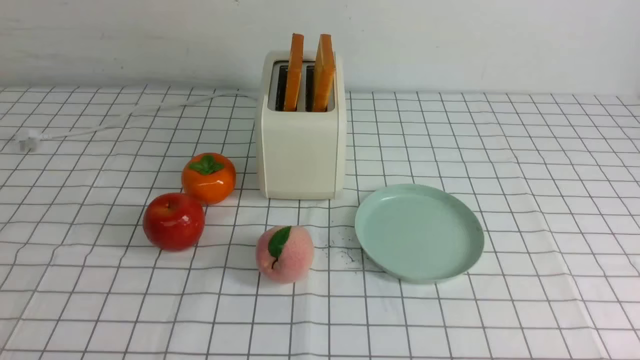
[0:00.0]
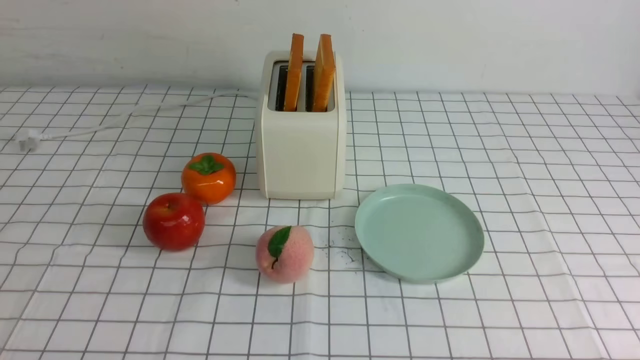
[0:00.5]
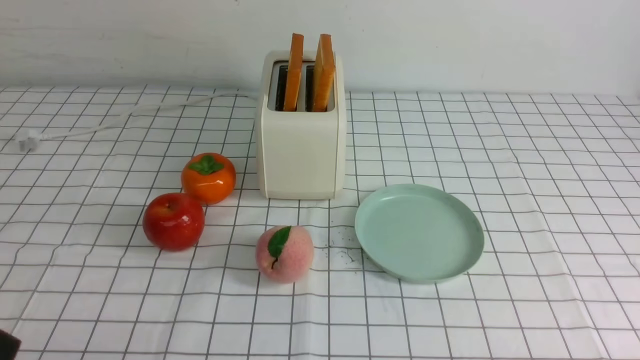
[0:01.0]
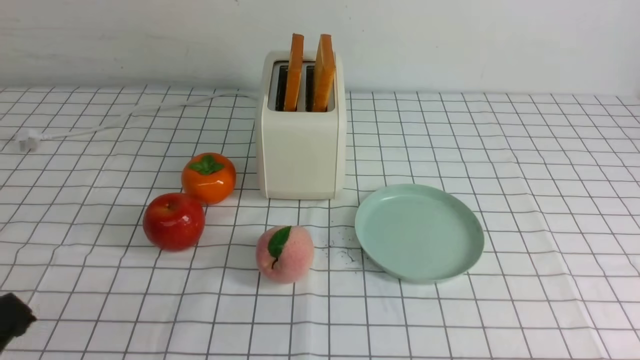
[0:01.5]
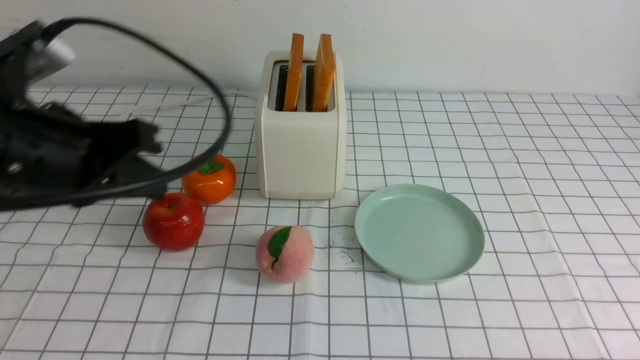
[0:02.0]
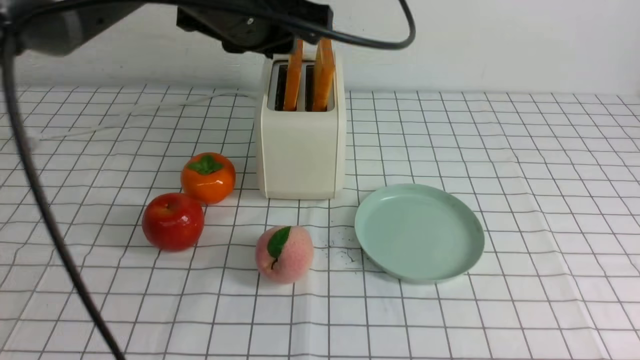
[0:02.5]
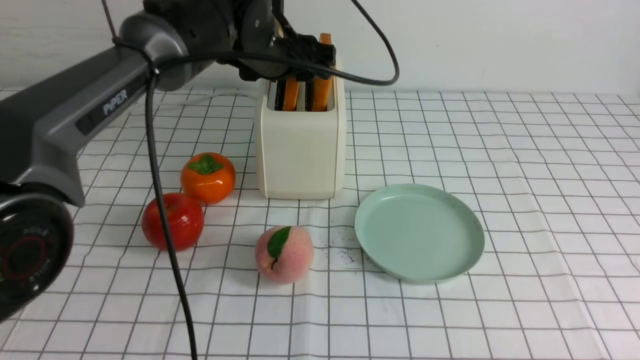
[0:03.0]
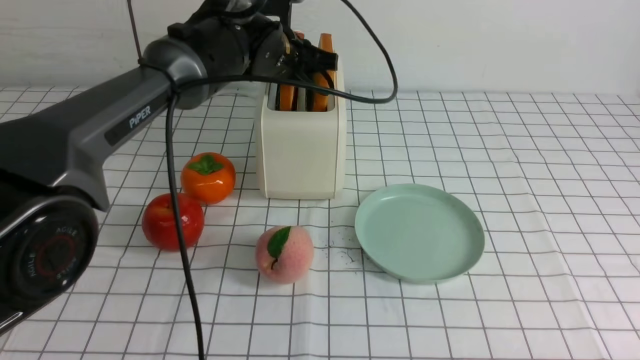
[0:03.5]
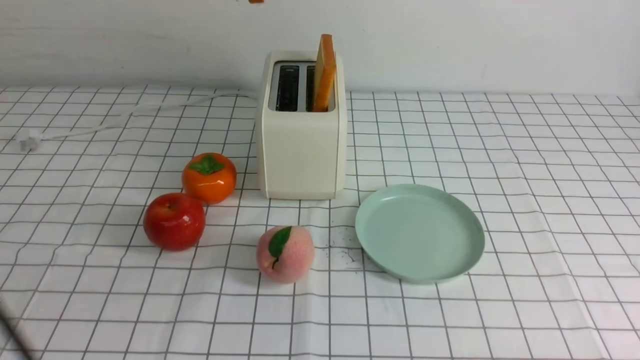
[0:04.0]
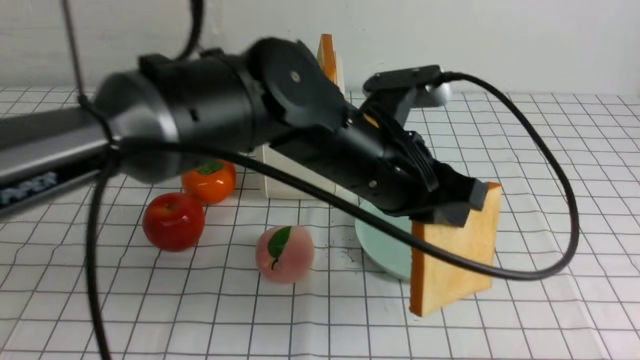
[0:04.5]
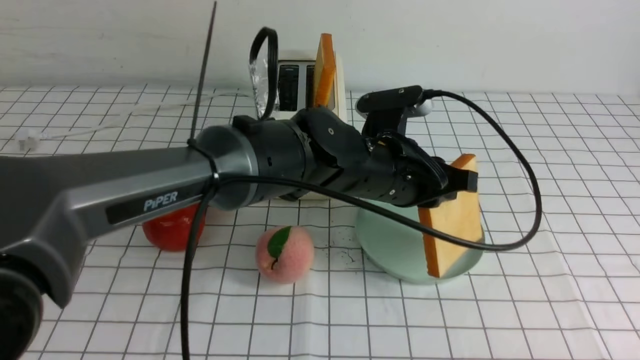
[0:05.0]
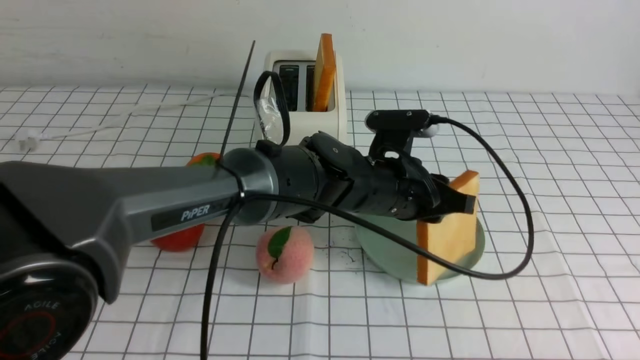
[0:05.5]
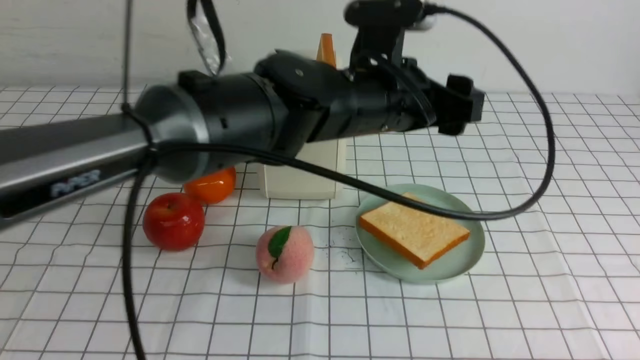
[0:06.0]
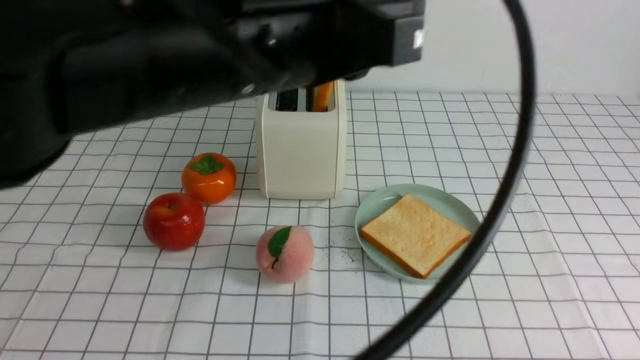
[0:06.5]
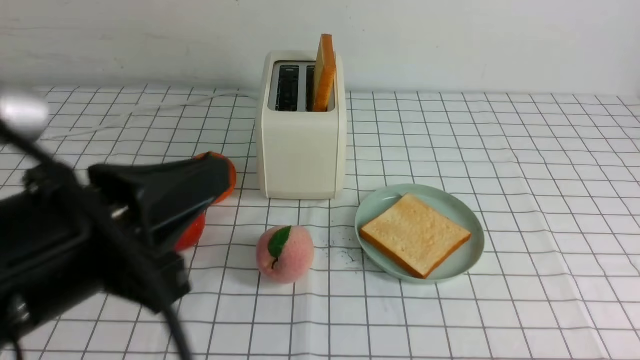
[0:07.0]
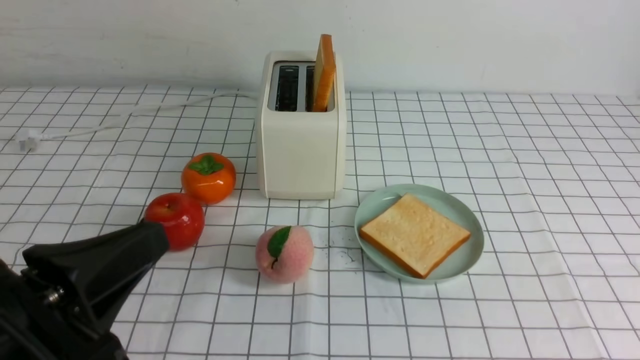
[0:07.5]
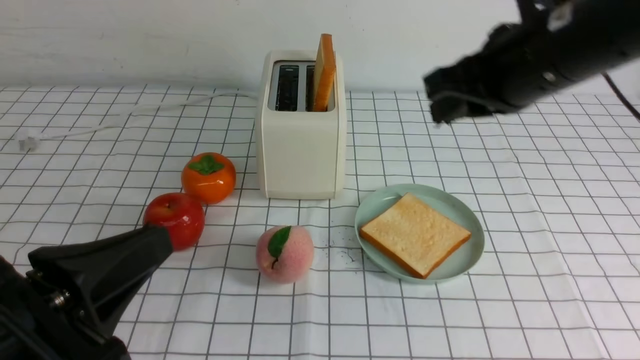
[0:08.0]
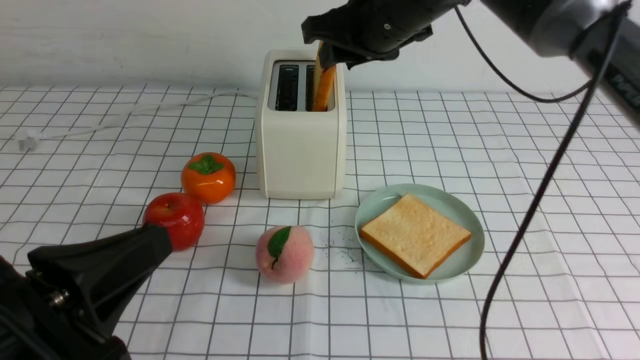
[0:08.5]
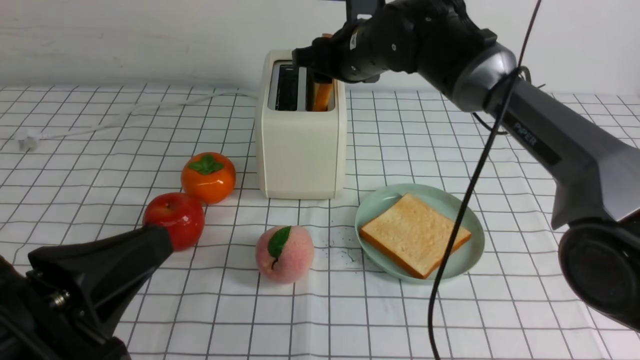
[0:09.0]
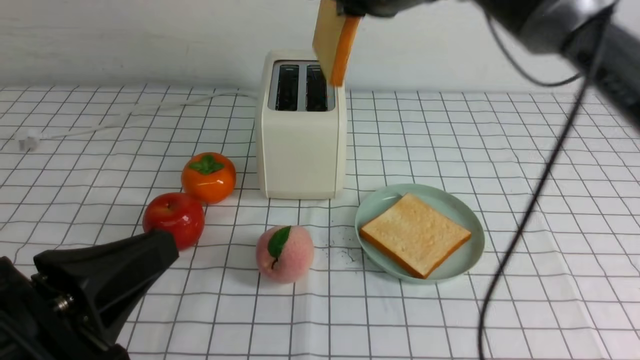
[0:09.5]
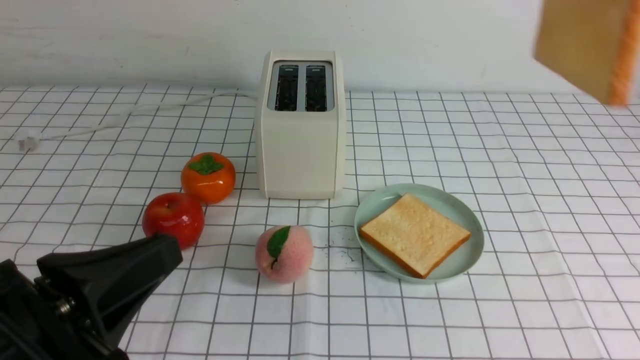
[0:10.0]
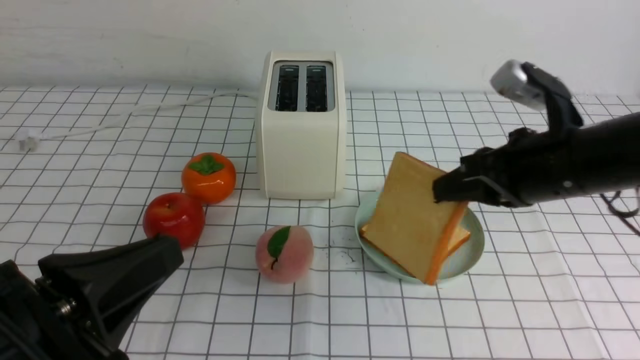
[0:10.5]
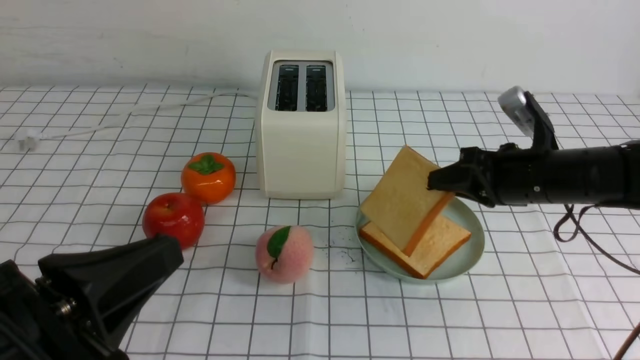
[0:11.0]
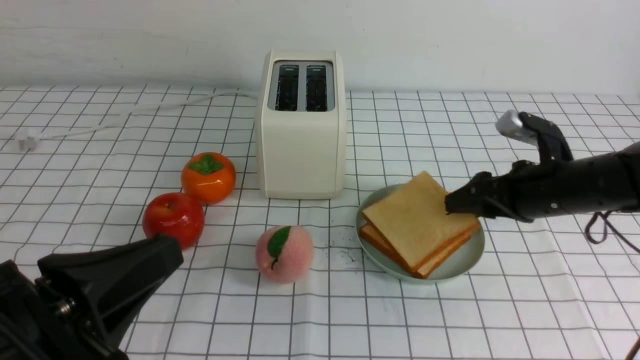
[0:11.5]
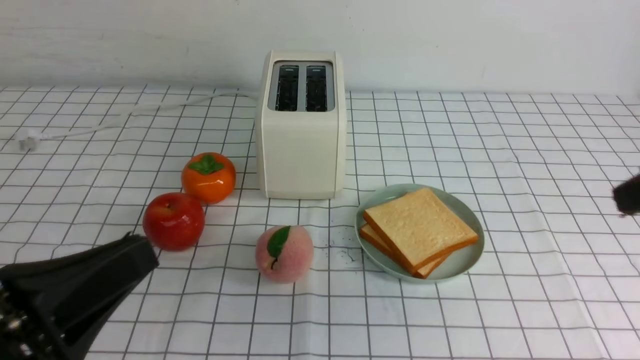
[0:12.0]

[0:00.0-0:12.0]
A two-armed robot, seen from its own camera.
Task of the whole recording: take toasted bread from bread machine on white checkered table place on plate.
Step, 0:00.0 to 0:03.5: use the left arm to take out a slice of bread.
Step, 0:04.0 to 0:06.0: use the left arm to put a slice of bread into the empty plate.
Step, 0:06.5 to 0:09.0: use the right arm to take out a slice of bread.
Step, 0:09.5 to 0:11.5: use the right arm to put a slice of bread into the plate.
0:02.0 to 0:04.0: The left gripper travels forward, to the right and upward by roughly 25 cm, and opens and closes again.
0:04.0 to 0:06.0: The left gripper shifts approximately 20 cm downward and to the right, and opens.
0:06.0 to 0:08.0: The right gripper shifts some 35 cm upward, forward and to the left. The left gripper is displaced backward and to the left by approximately 35 cm, and closes.
0:08.0 to 0:10.0: The right gripper moves upward, some 10 cm, moves some 20 cm forward and comes back, and opens and closes again.
0:10.0 to 0:12.0: The right gripper moves downward and to the right, roughly 20 cm, and opens and closes again.

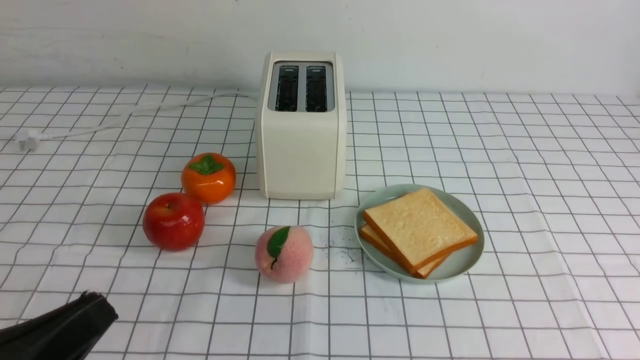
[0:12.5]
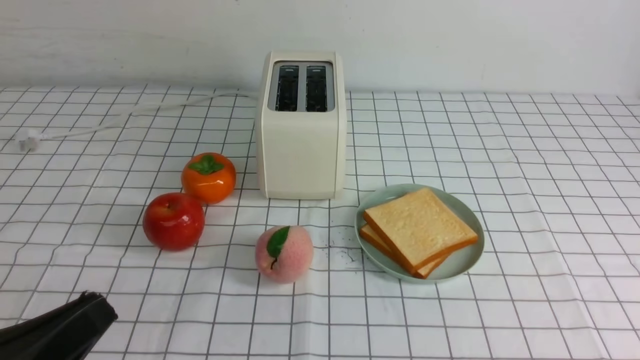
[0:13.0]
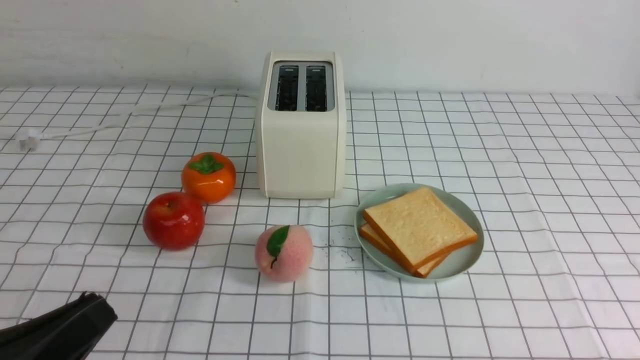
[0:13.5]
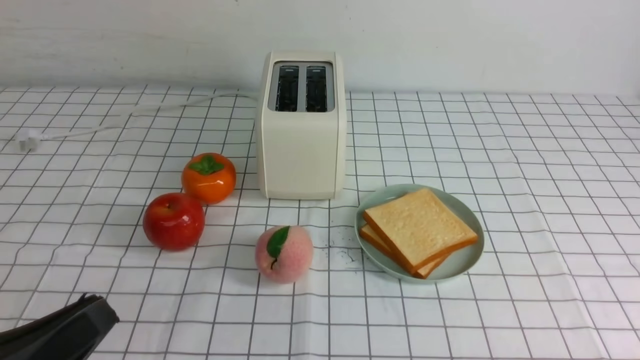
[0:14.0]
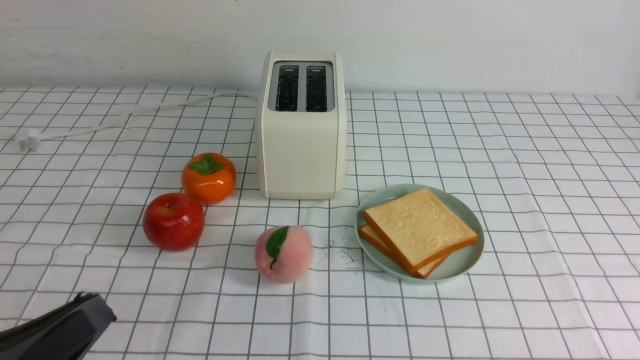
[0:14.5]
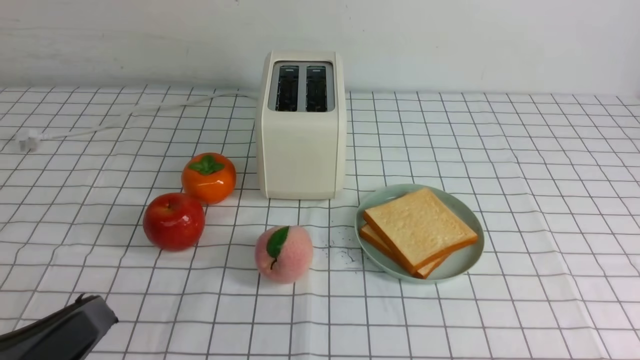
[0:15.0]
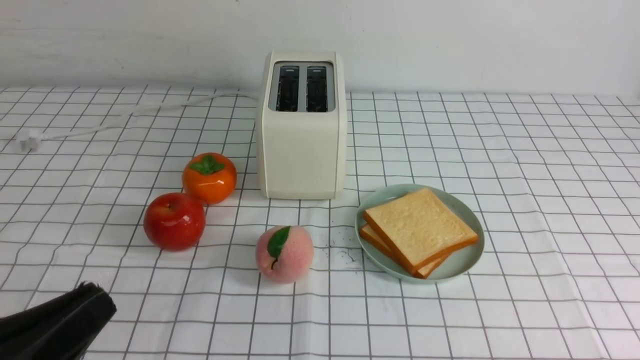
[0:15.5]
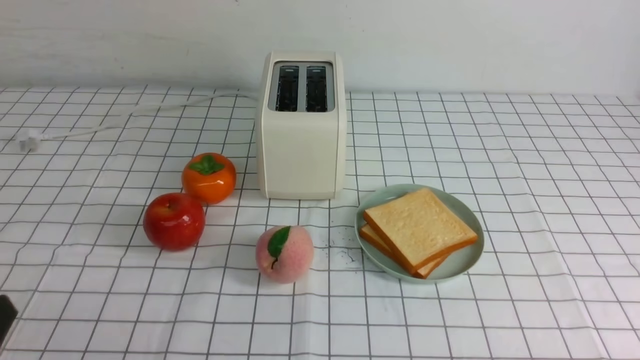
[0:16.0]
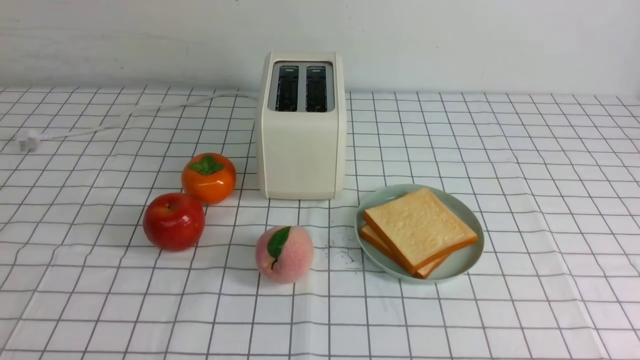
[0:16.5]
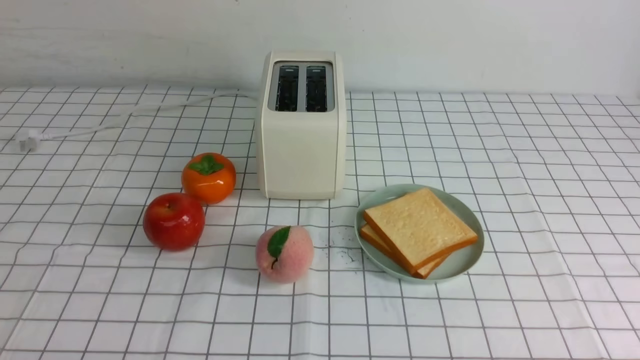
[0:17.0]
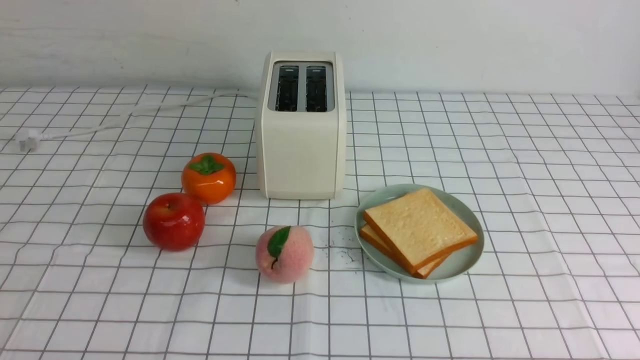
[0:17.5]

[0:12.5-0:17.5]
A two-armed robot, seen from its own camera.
Task of the whole recording: take toasted bread from bread machine on white checkered table place on plate.
0:15.0 to 0:17.5: The left gripper travels downward by roughly 10 cm.

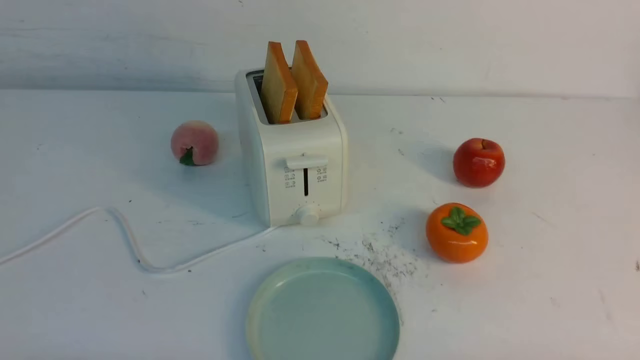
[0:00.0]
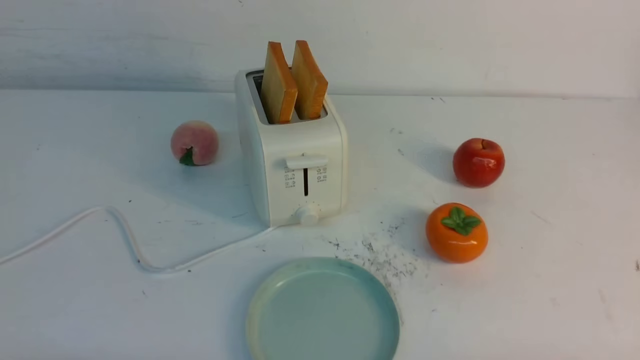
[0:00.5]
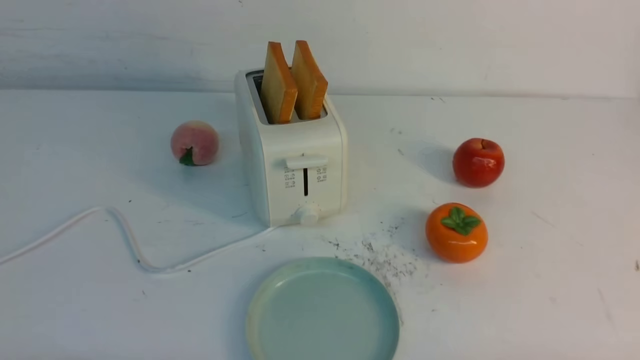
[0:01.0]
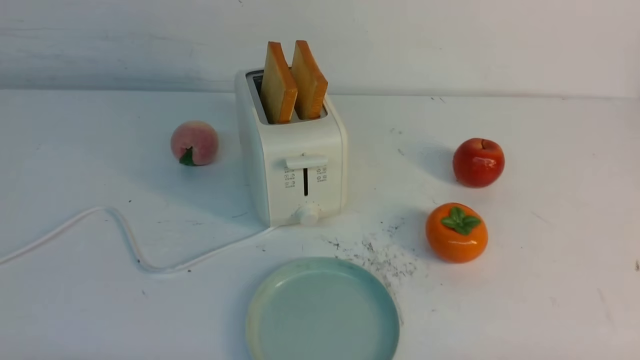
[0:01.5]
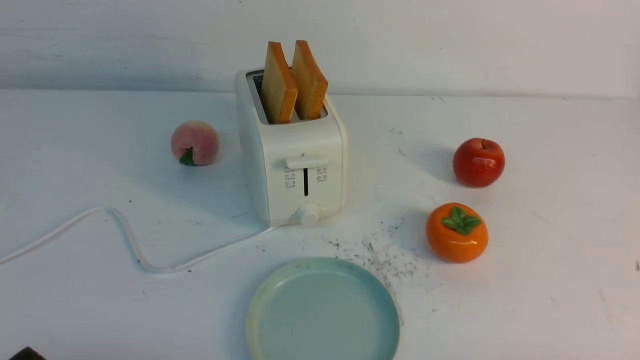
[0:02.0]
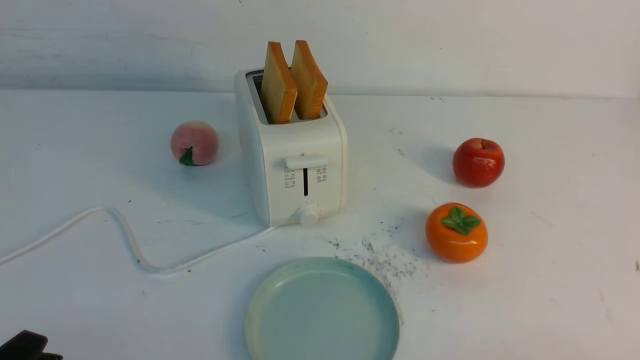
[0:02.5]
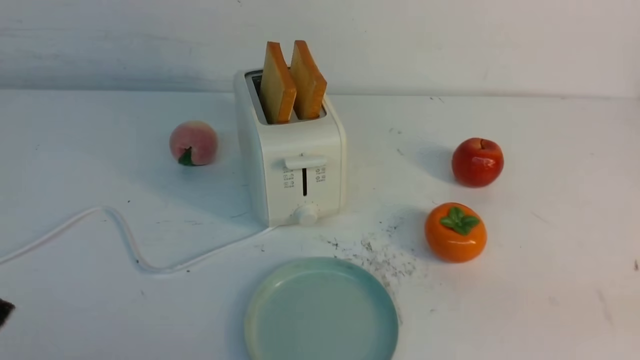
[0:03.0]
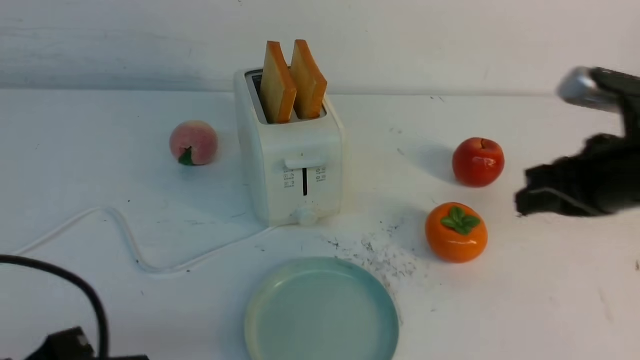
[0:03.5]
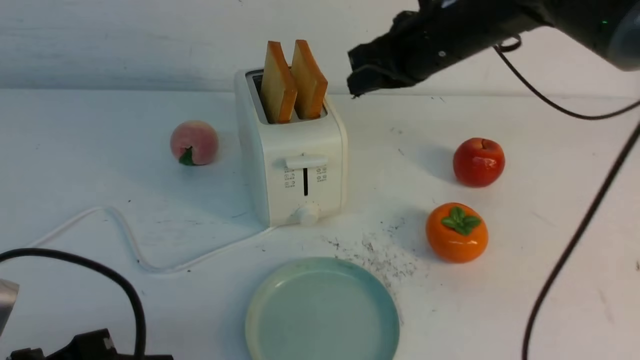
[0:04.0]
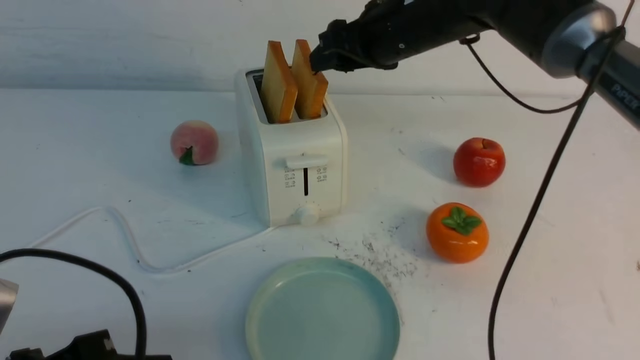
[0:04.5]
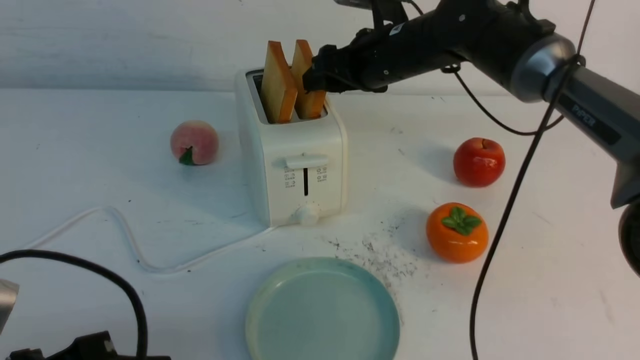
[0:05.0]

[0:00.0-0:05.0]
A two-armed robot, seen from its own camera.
Task of the whole recording: take toasted bread from bread machine on white table place on plate.
0:02.5 to 0:05.0: The left gripper changes place by about 10 cm, and closes its fingers; the right gripper shifts about 50 cm forward and to the left, and opens its fingers.
